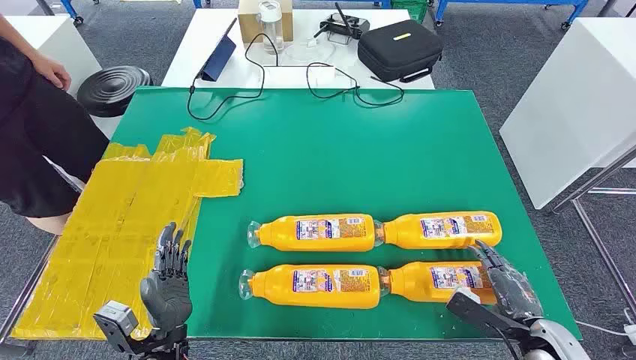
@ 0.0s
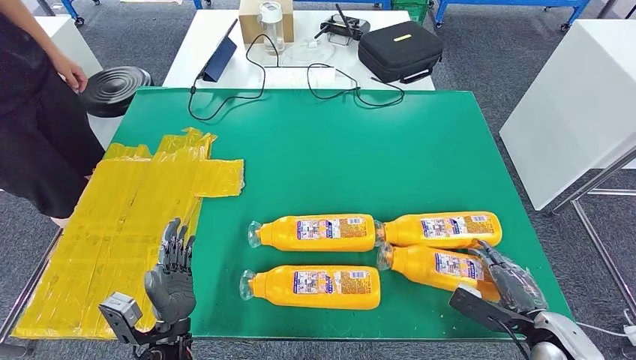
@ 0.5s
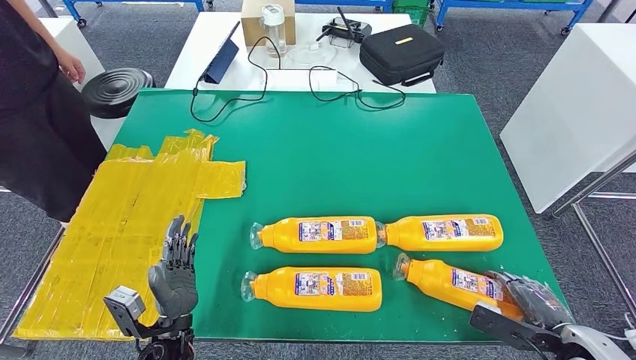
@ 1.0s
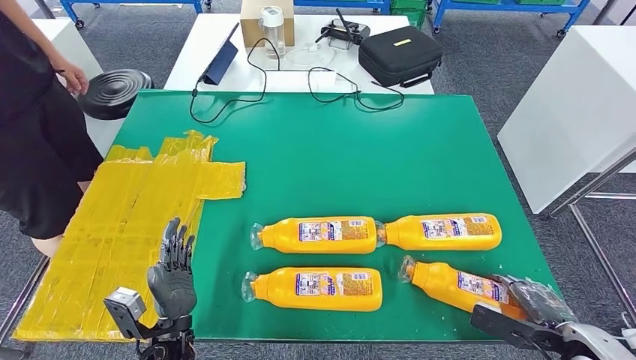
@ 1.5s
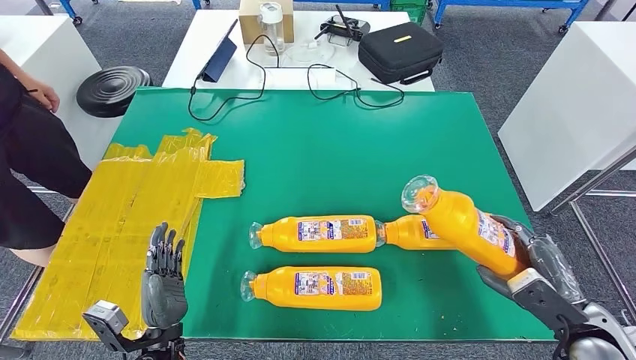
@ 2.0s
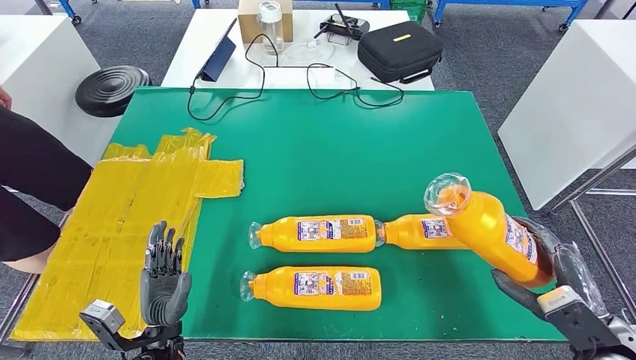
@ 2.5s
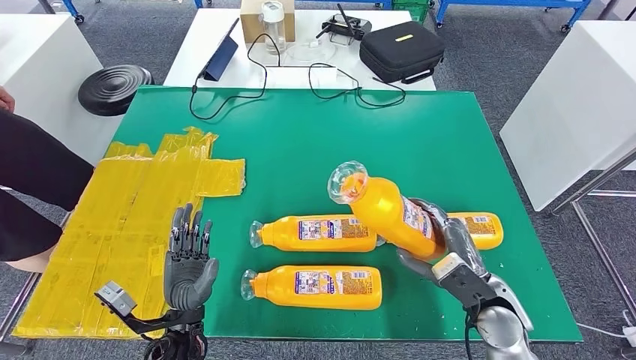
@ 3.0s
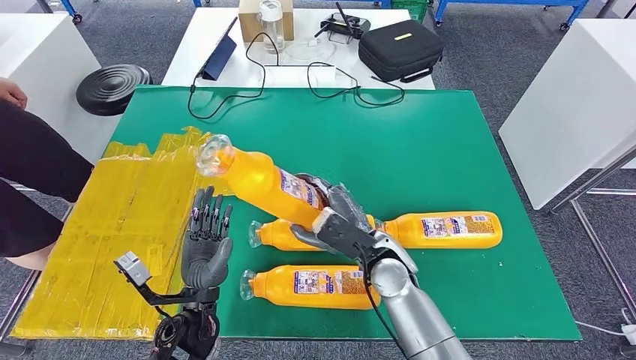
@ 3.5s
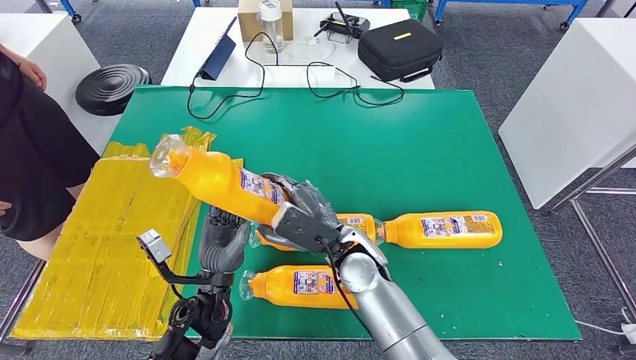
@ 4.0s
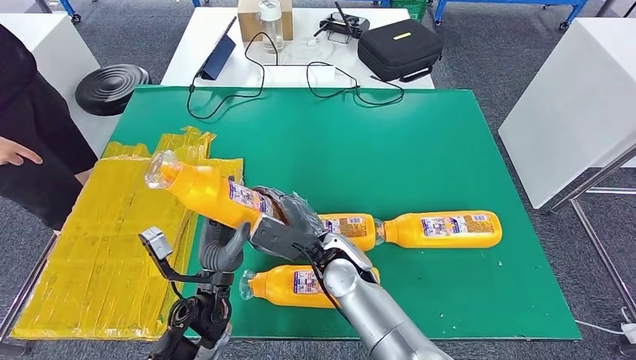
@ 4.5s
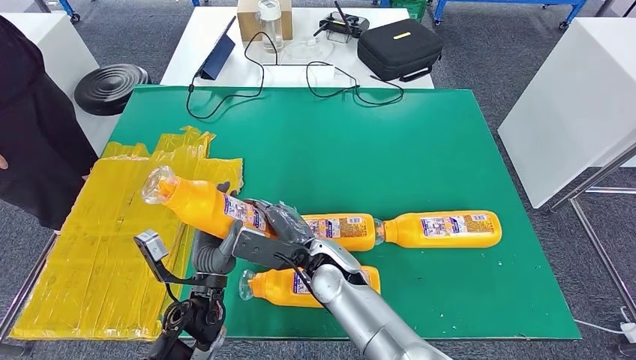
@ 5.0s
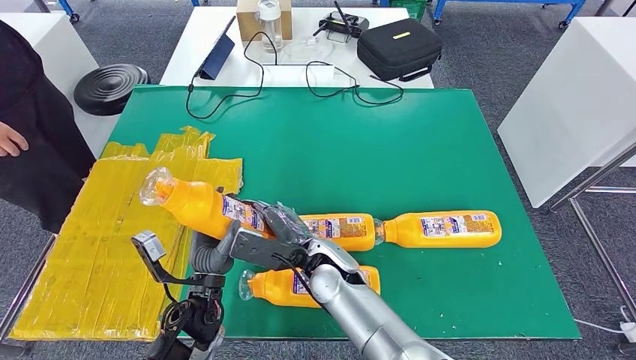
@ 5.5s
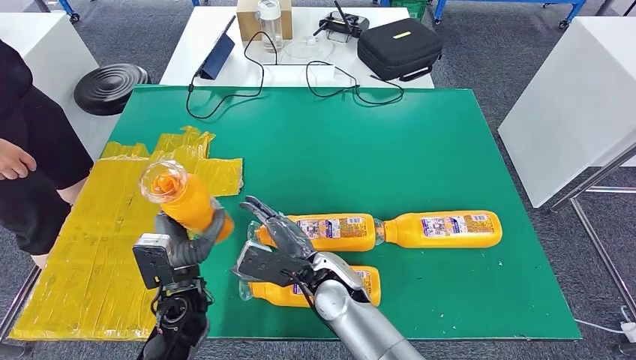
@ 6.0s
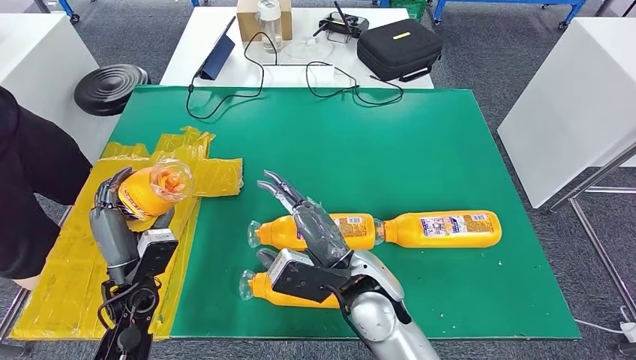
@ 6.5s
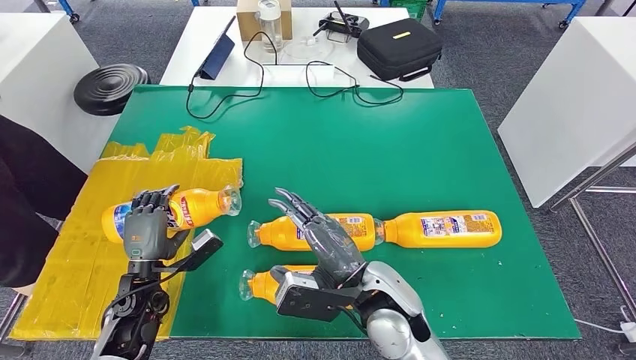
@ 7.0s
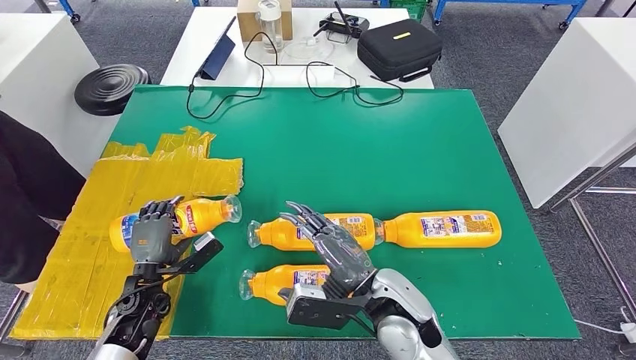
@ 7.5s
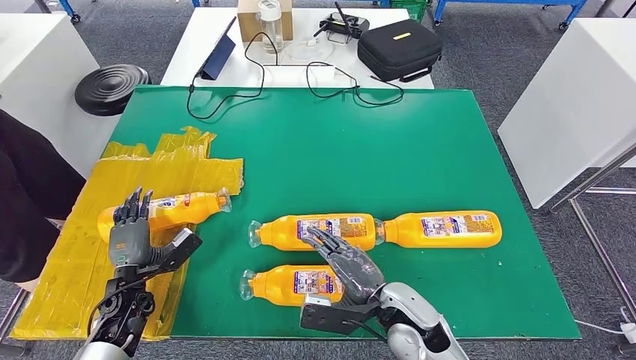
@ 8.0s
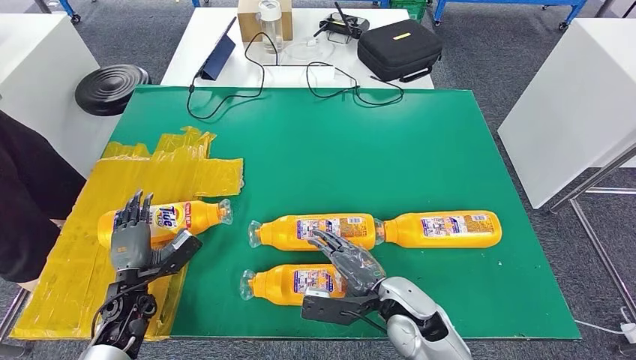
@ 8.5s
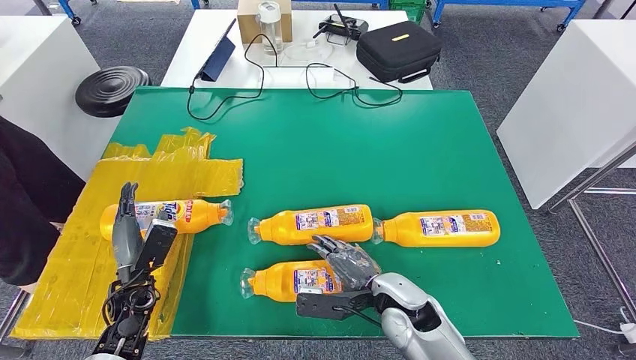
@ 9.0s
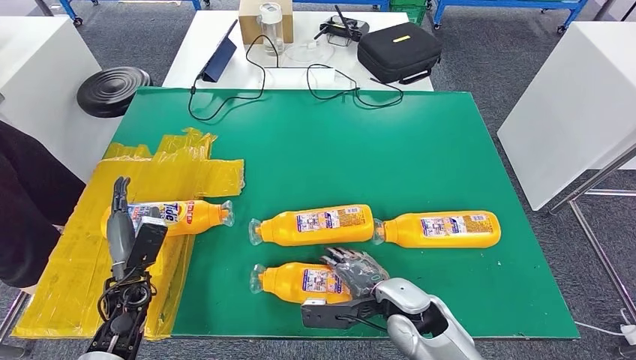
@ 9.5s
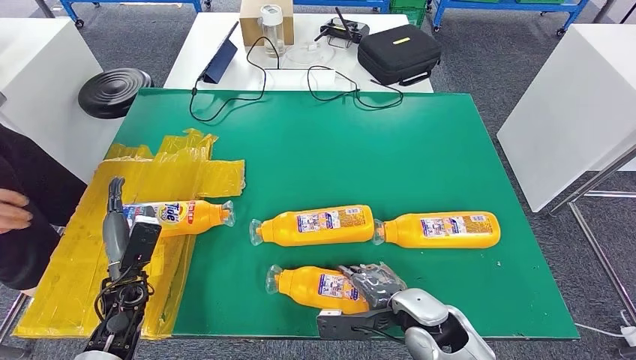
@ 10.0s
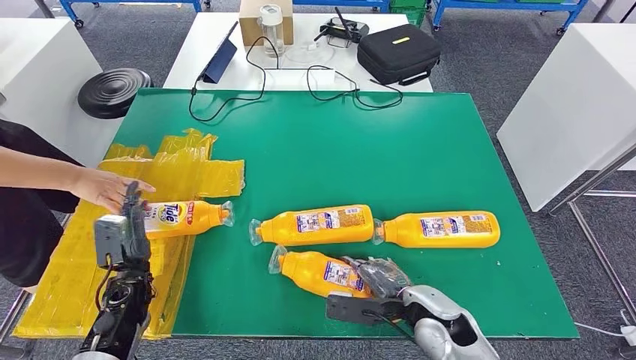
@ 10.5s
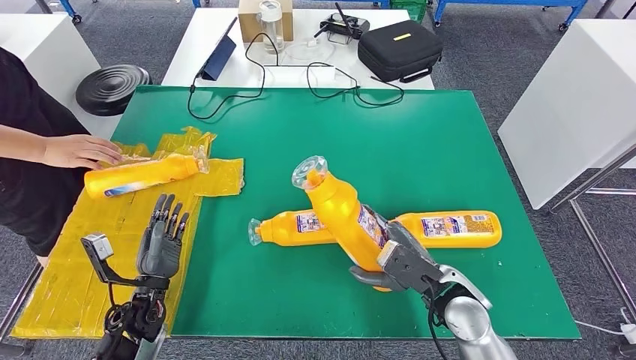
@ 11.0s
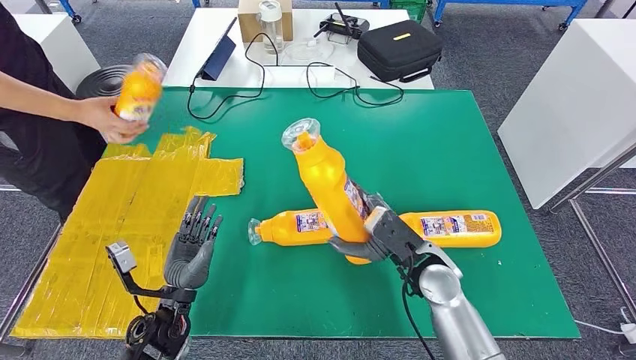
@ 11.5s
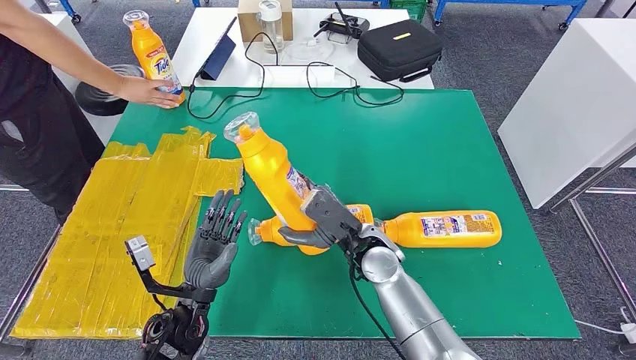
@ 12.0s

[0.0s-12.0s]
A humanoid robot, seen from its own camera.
Step, 0.0s to 3.0s: Take the fast-moving consumer goods bottle from the table.
Step, 4.0s to 7.5s: Flip the fast-moving consumer goods bottle to the front side.
Step, 10.5s to 11.5s: Pick up the fast-moving consumer goods bottle from the table.
4.0s to 6.0s: The right hand shifts by roughly 5 cm.
6.0s to 8.0s: The right hand is displaced to the right by some 10 cm; the left hand heads to the left and downward, covering some 15 cm.

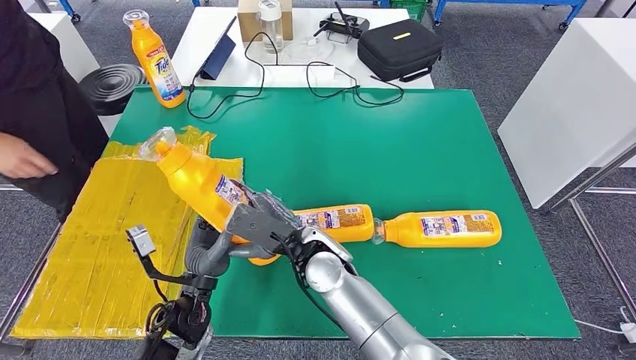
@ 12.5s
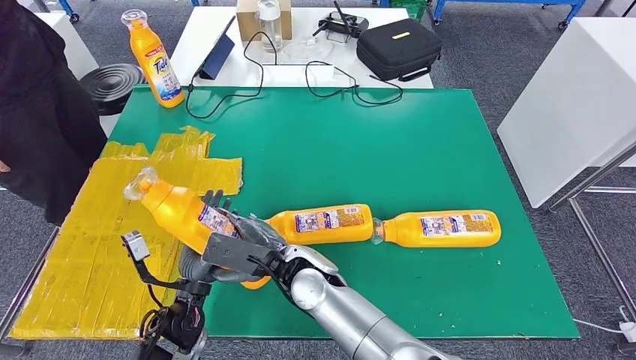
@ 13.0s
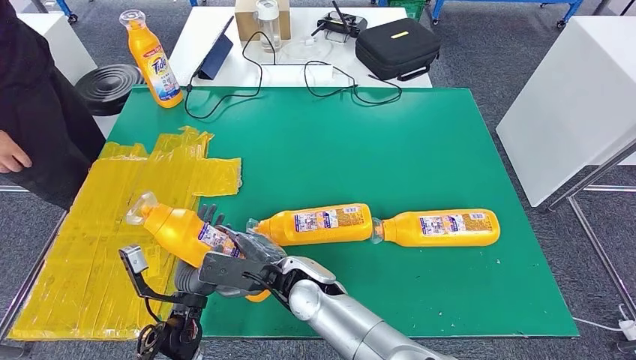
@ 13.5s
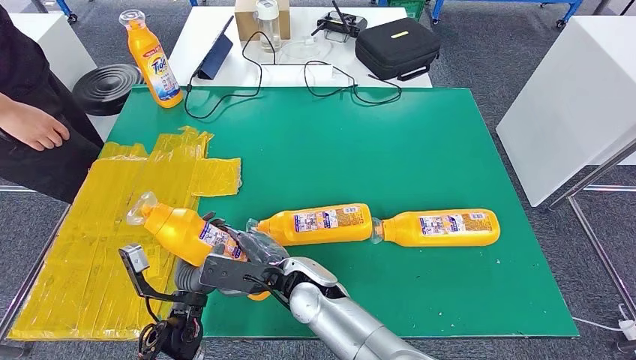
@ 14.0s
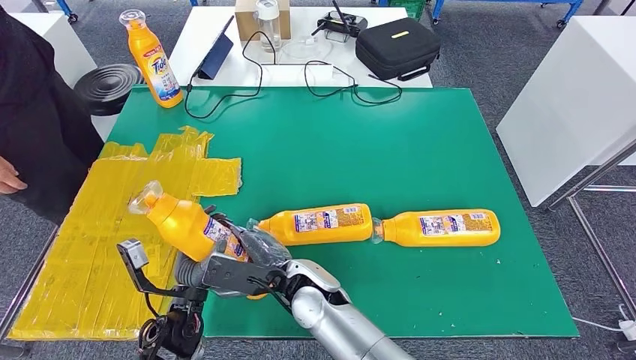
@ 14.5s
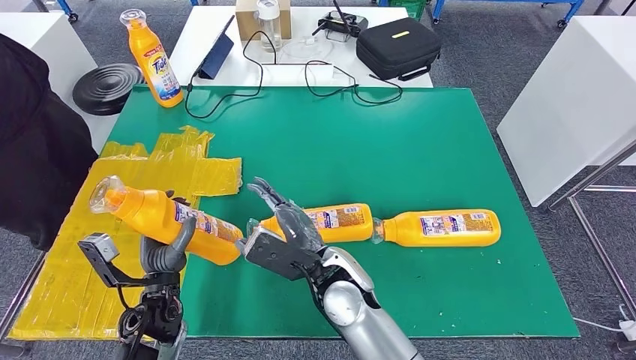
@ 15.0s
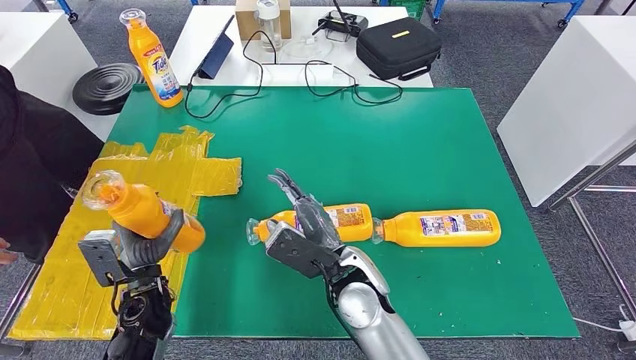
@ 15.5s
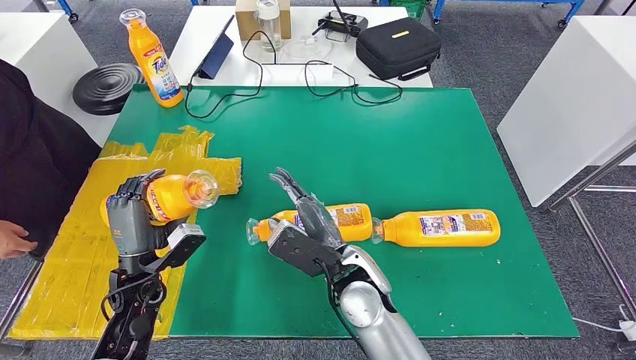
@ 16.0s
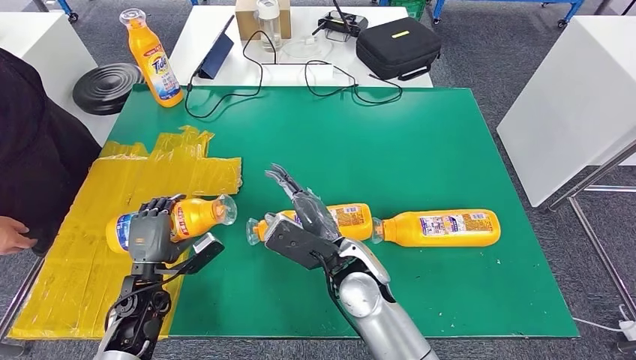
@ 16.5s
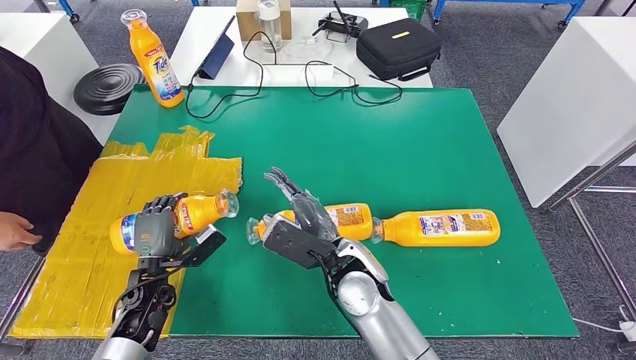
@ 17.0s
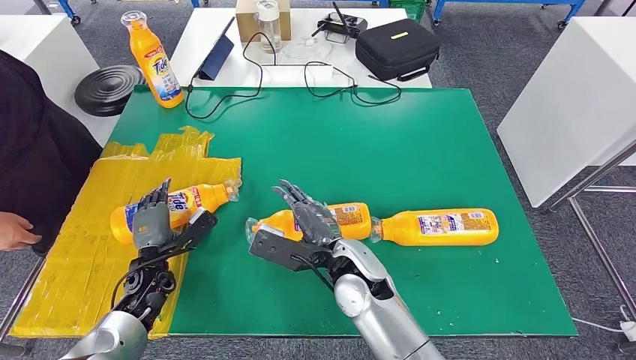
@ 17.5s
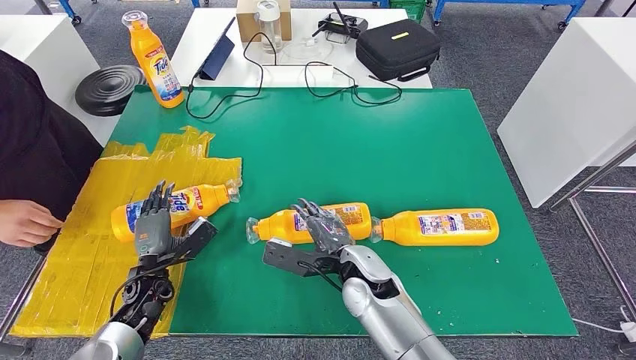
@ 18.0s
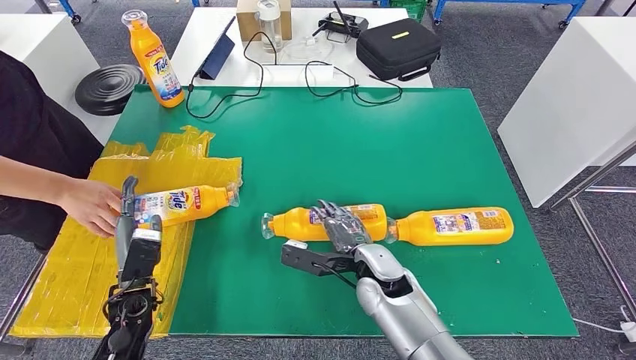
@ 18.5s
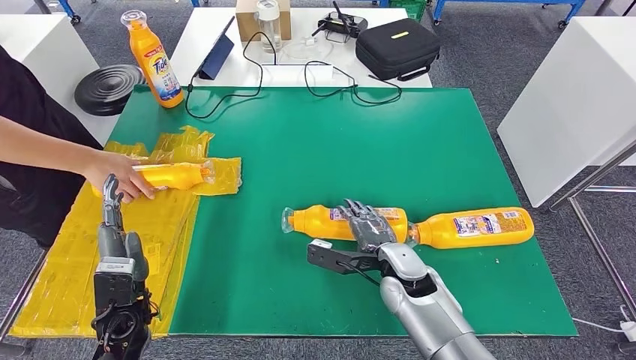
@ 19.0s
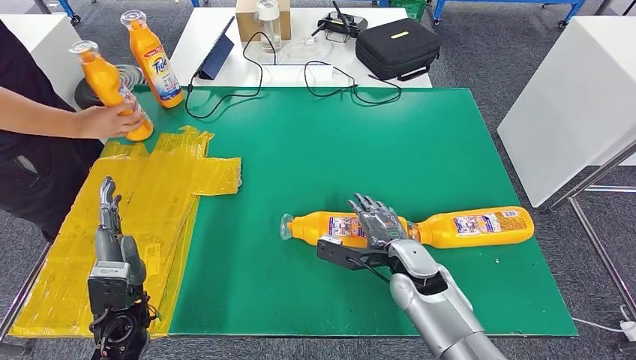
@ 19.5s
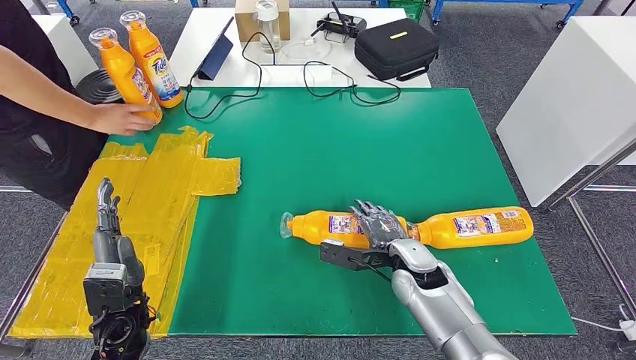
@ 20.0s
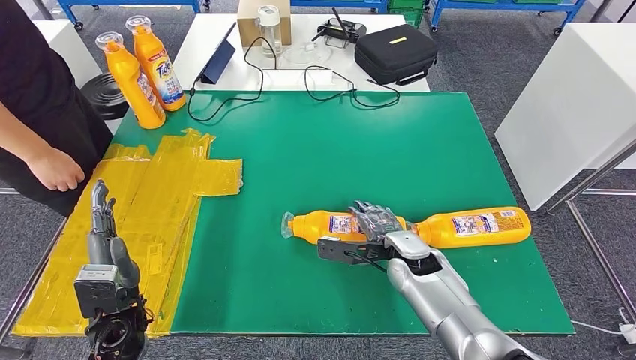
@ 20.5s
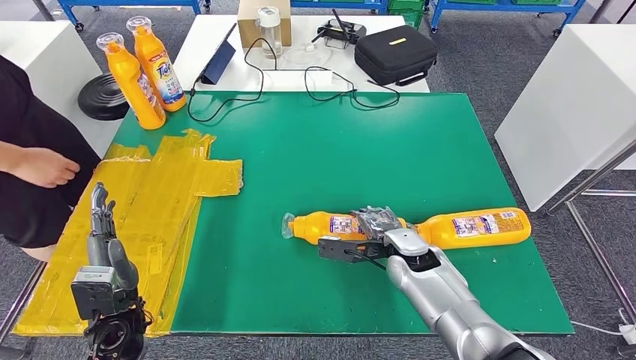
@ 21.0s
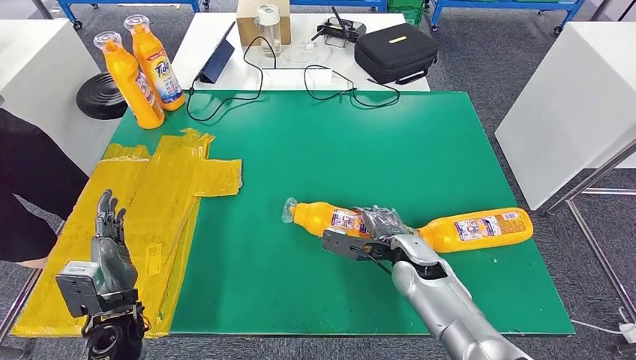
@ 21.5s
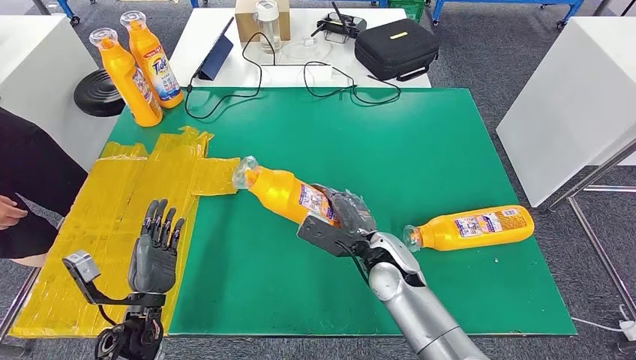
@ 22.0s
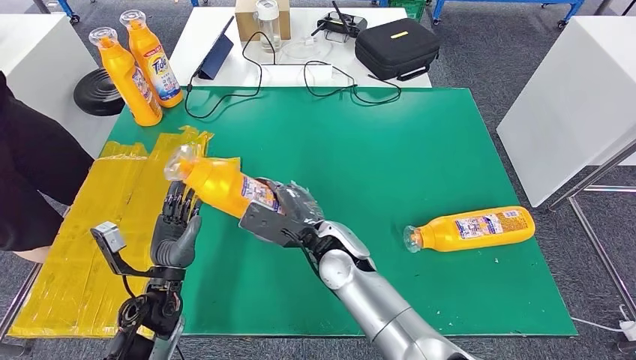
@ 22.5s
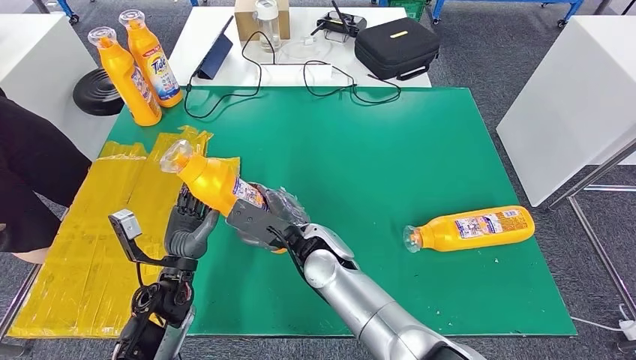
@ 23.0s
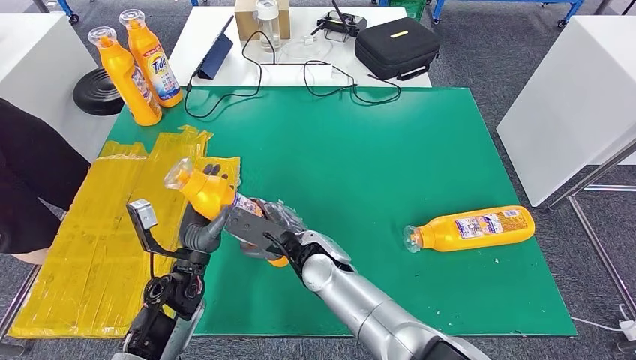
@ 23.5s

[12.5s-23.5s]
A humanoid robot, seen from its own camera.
Step, 14.0s to 18.0s: Flip the fast-moving consumer goods bottle to the front side.
Step, 21.0s to 22.5s: Pick up the fast-moving consumer goods bottle from the table.
12.5s to 14.5s: The right hand moves about 5 cm.
14.5s to 16.0s: The right hand goes approximately 5 cm to the right, while the left hand moves to the left and forward, approximately 10 cm.
16.0s to 18.0s: Both hands travel together downward, approximately 5 cm.
